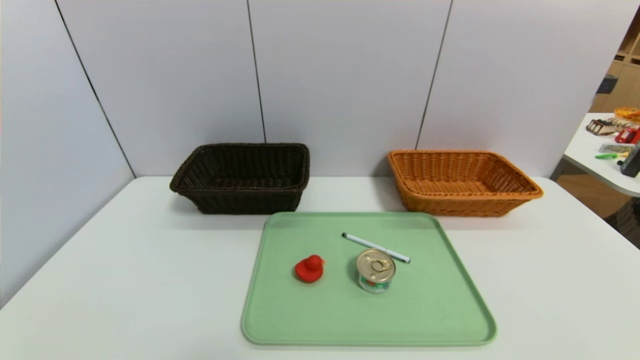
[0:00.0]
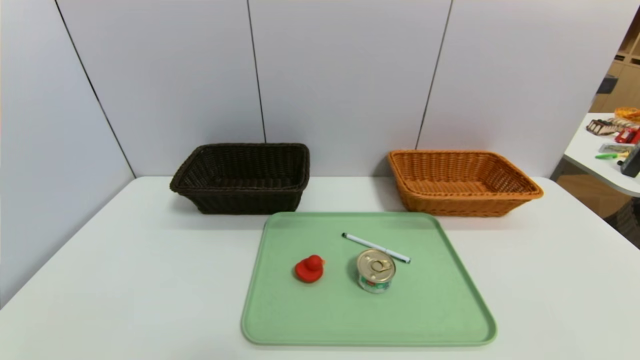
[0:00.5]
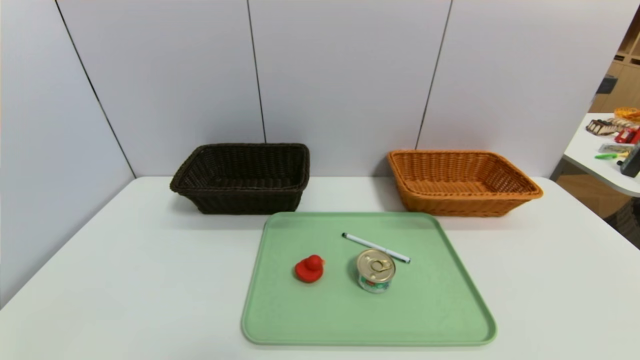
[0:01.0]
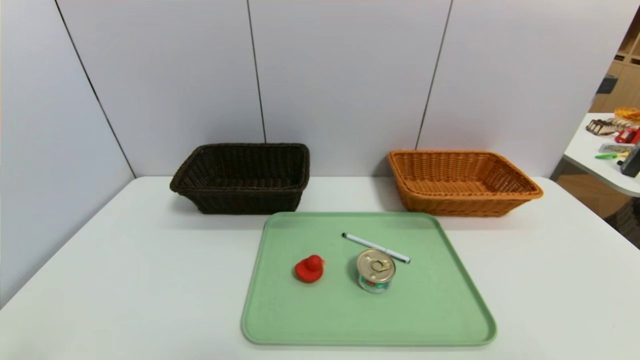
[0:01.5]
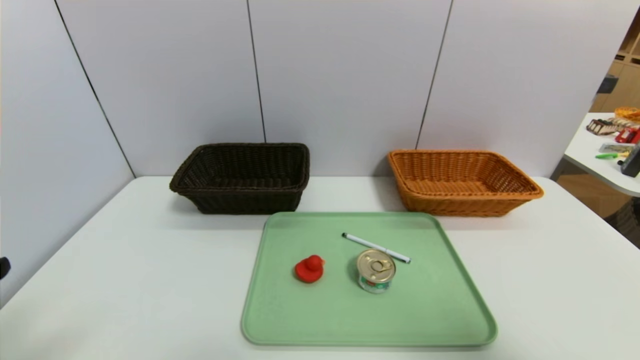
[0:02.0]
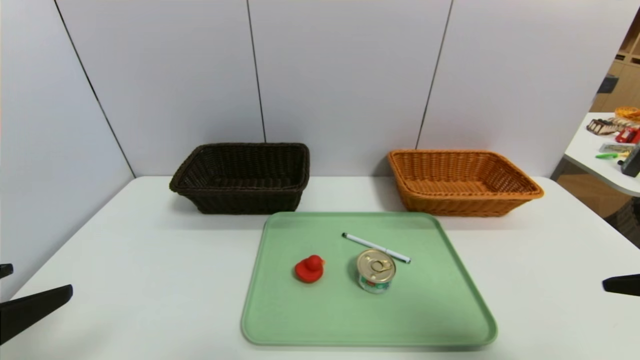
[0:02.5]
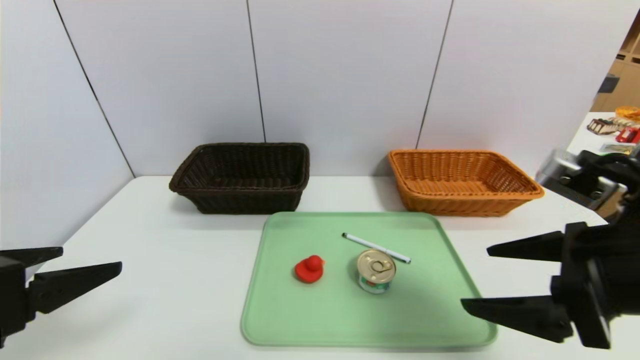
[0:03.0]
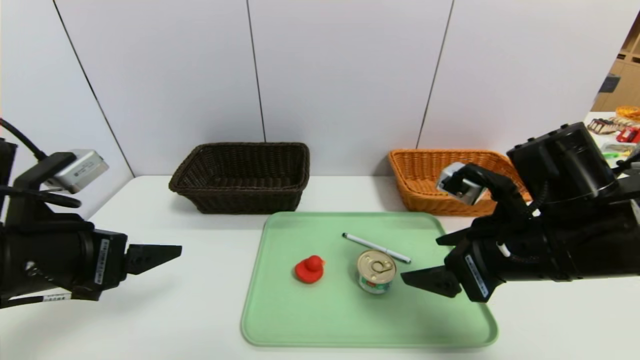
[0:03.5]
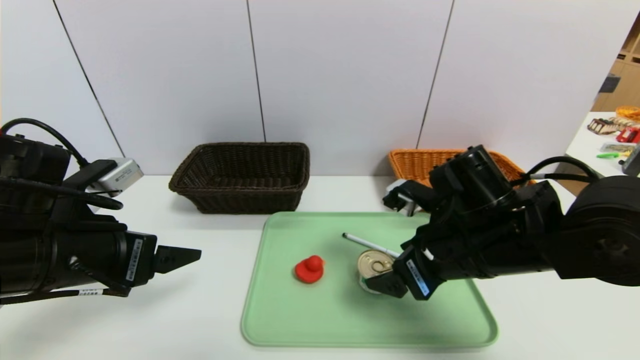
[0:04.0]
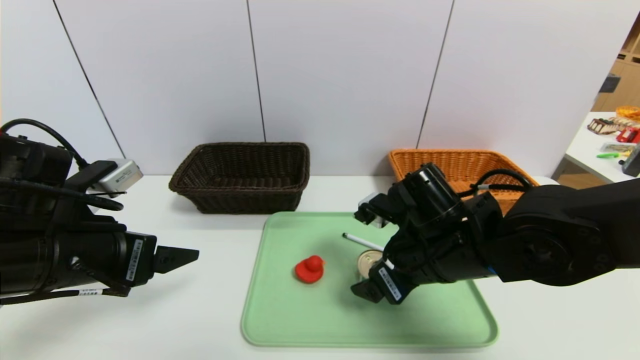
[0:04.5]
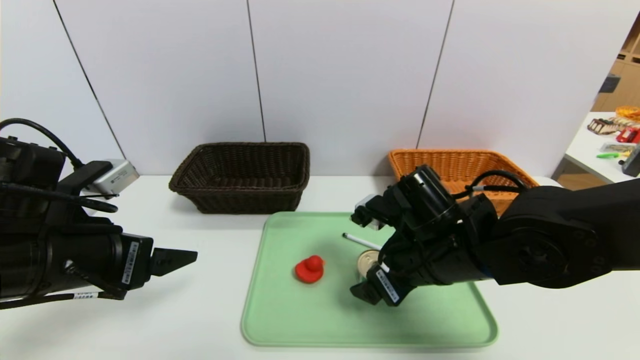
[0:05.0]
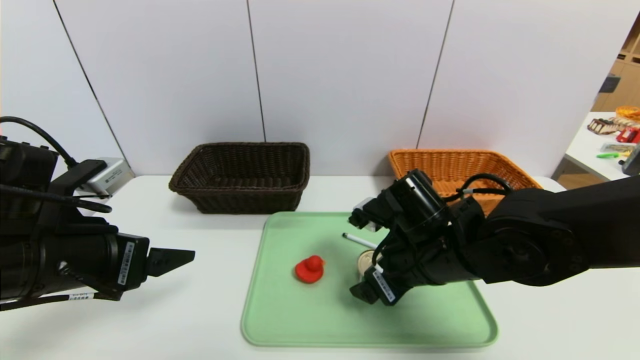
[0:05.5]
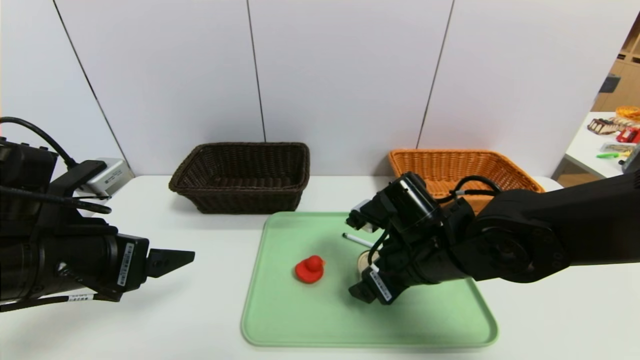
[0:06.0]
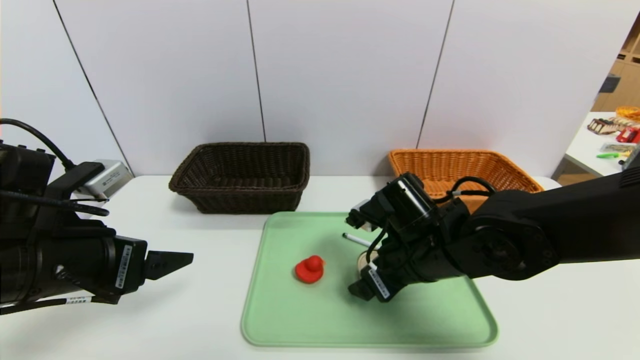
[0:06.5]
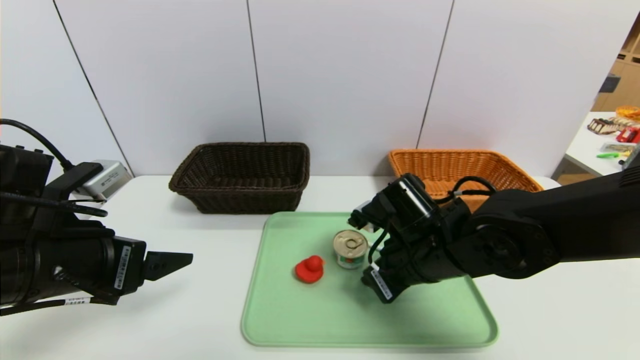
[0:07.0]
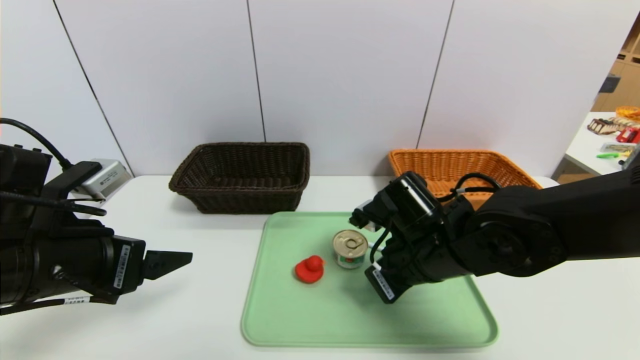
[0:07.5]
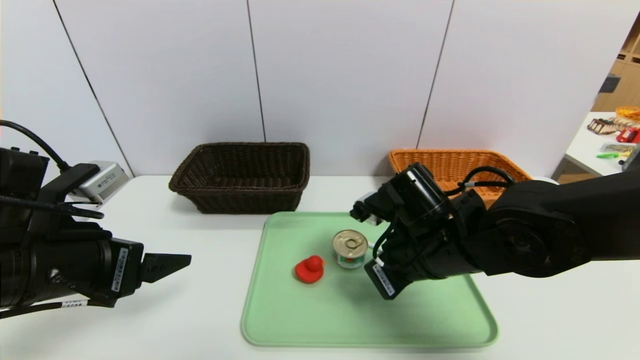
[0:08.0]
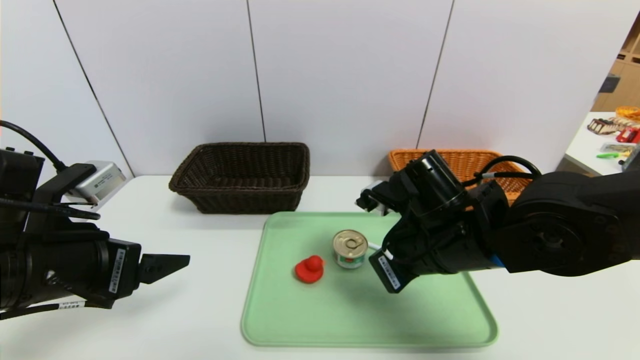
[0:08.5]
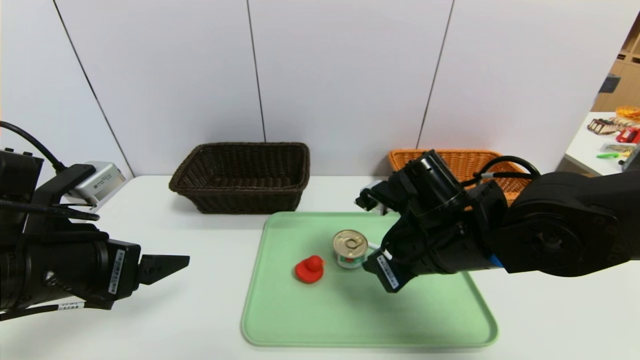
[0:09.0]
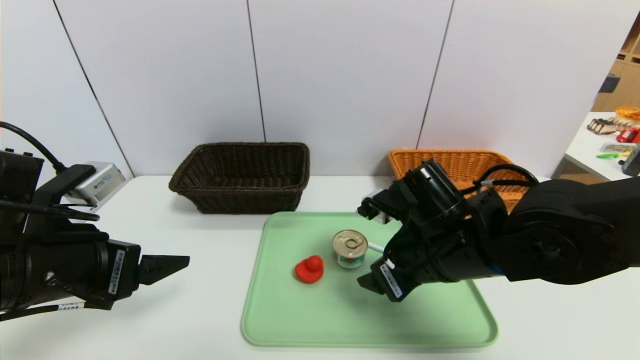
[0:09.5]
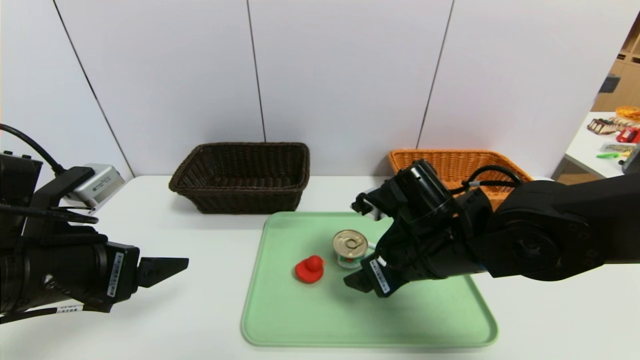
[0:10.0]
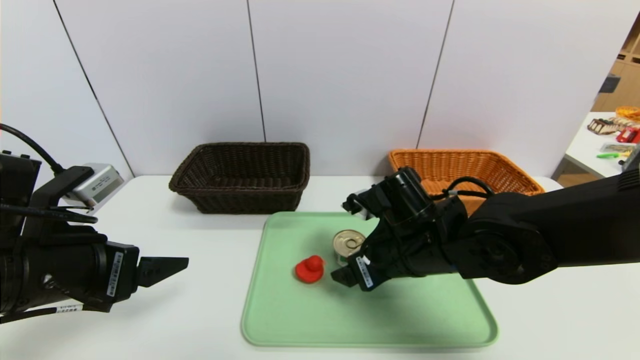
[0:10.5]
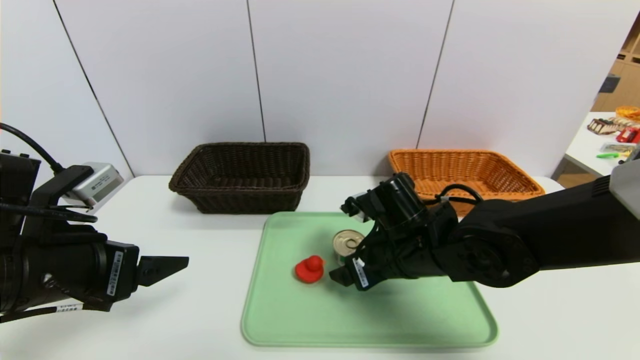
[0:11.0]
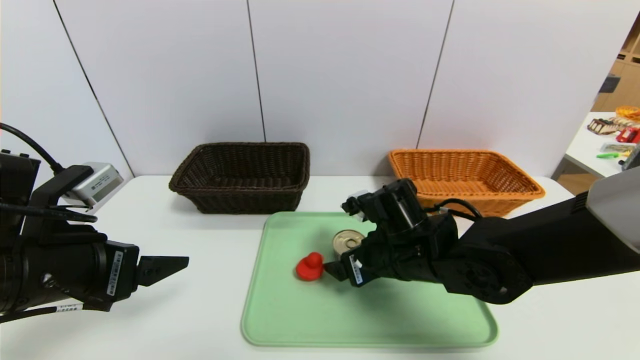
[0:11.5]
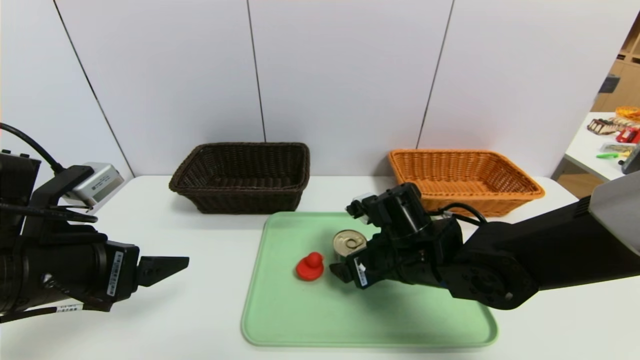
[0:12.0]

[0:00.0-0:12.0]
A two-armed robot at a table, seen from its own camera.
Task of the whole recording: place the food in the right basket with the right gripper, and place the non food items in the left basket with the left gripper.
0:00.0 to 0:02.0: Both grippers move upward, some 20 cm.
0:02.0 to 0:04.0: The left gripper heads forward, covering roughly 15 cm, while the right gripper travels forward, to the left and downward by roughly 30 cm.
0:04.0 to 0:06.0: The right gripper ends up some 5 cm from where it was.
0:06.0 to 0:08.0: The right gripper closes.
0:08.0 to 0:10.0: The right gripper opens.
0:10.0 to 0:12.0: The right gripper changes place by some 5 cm.

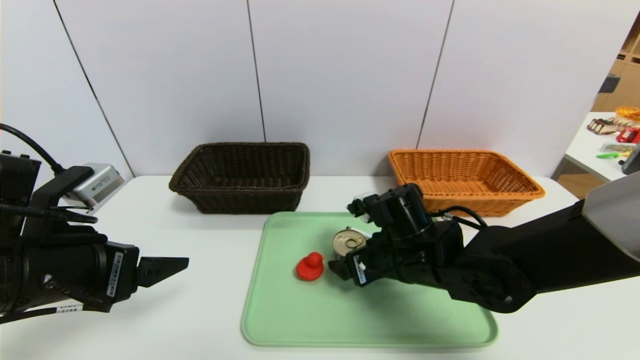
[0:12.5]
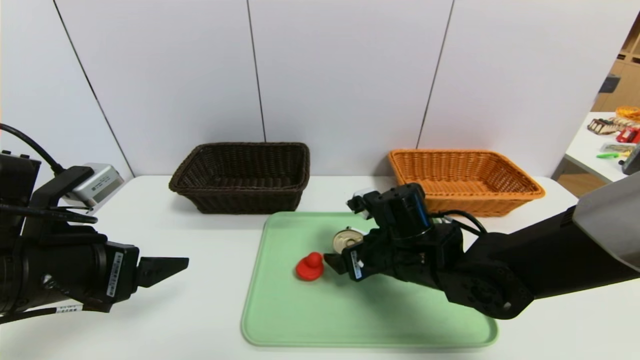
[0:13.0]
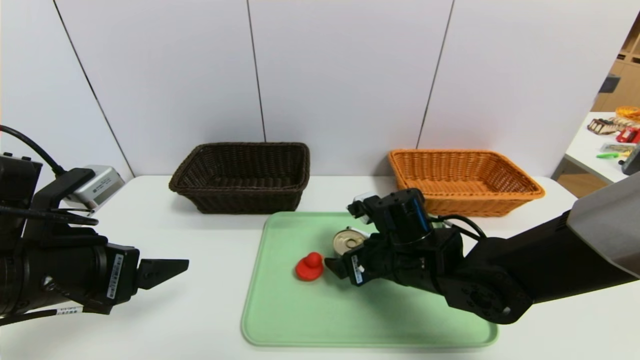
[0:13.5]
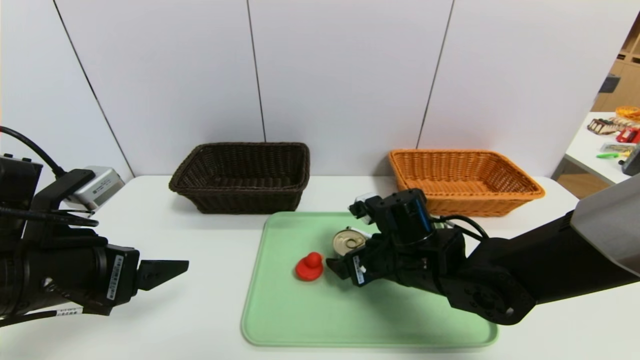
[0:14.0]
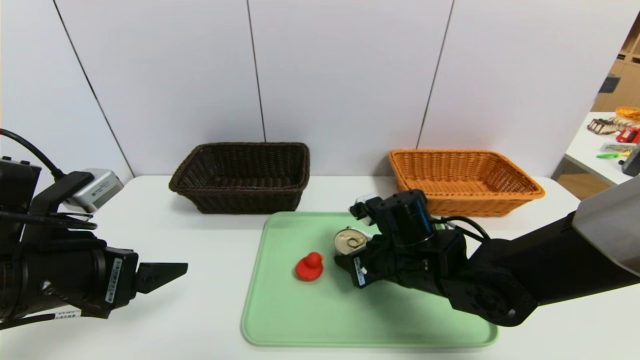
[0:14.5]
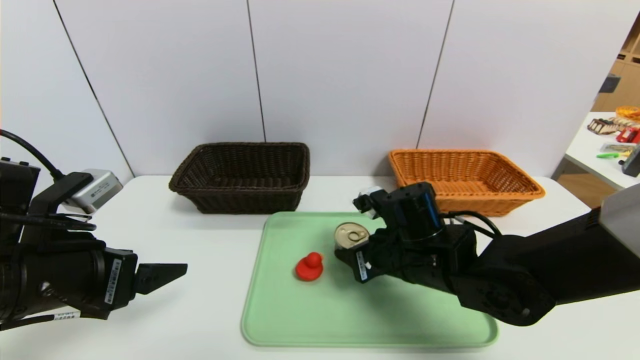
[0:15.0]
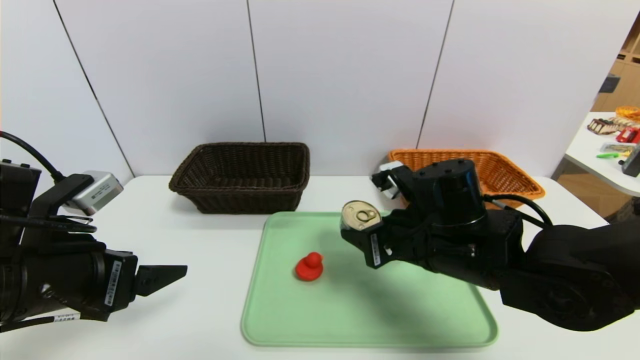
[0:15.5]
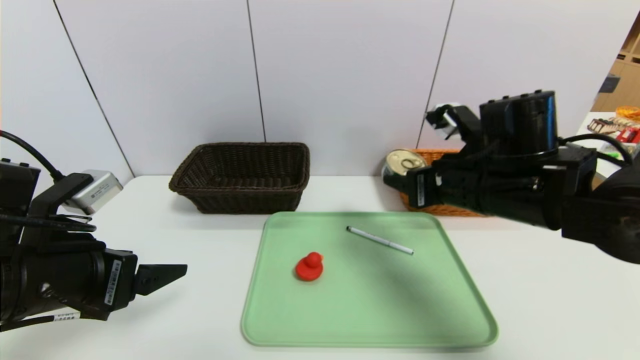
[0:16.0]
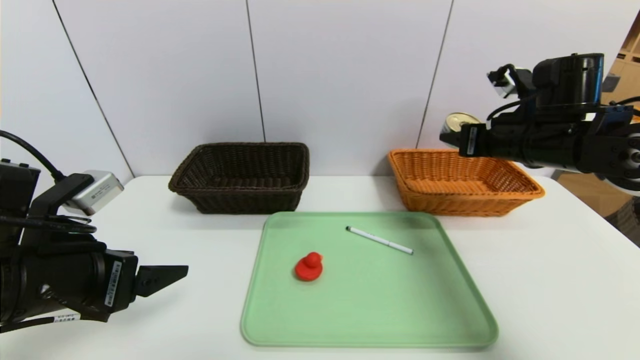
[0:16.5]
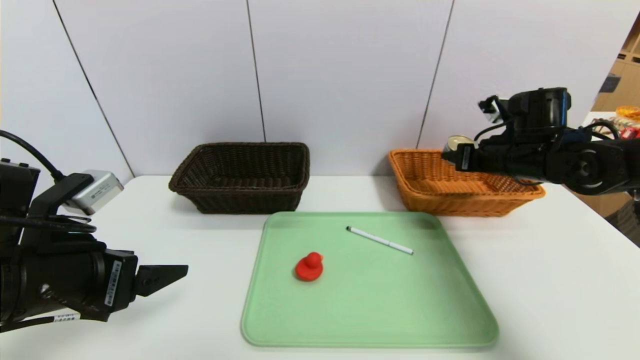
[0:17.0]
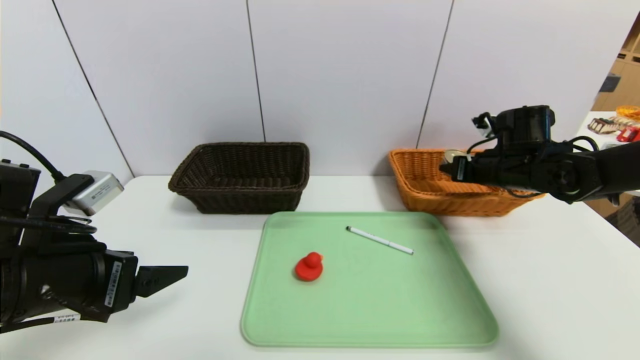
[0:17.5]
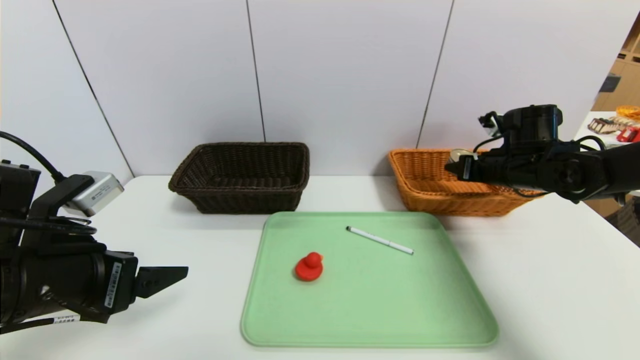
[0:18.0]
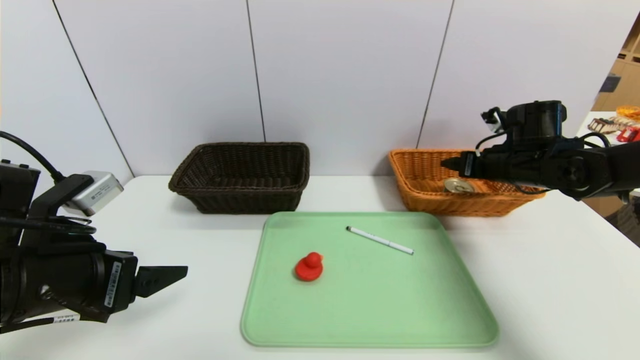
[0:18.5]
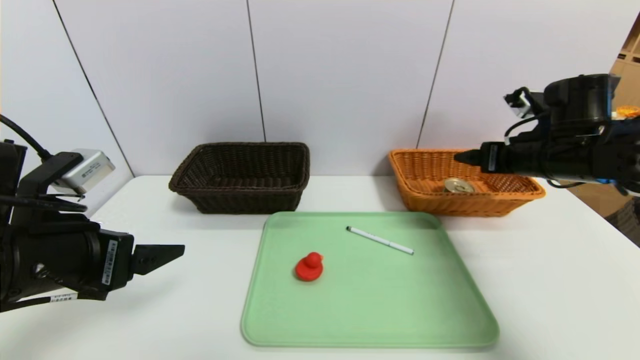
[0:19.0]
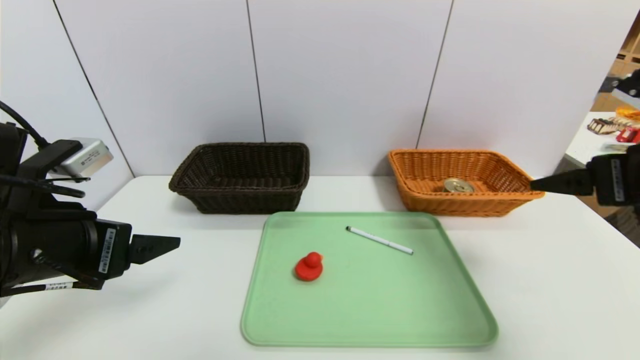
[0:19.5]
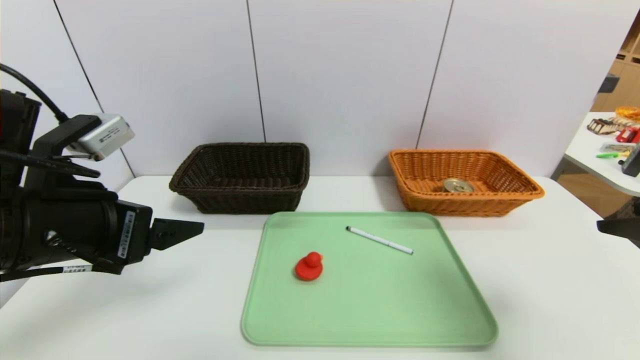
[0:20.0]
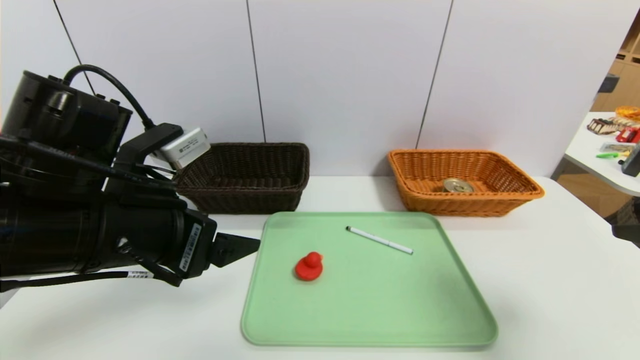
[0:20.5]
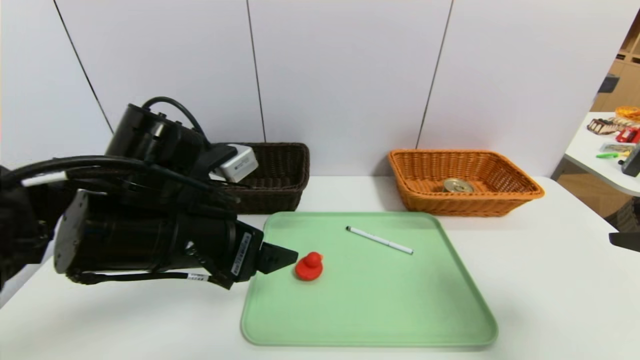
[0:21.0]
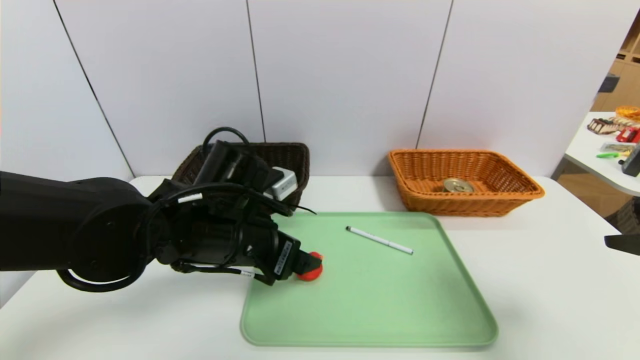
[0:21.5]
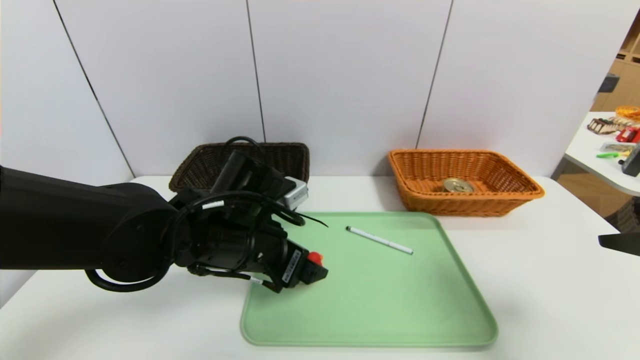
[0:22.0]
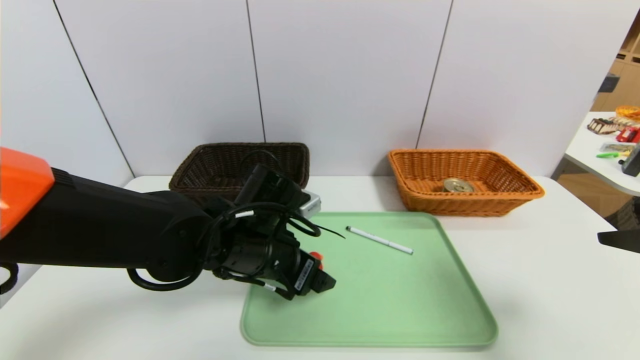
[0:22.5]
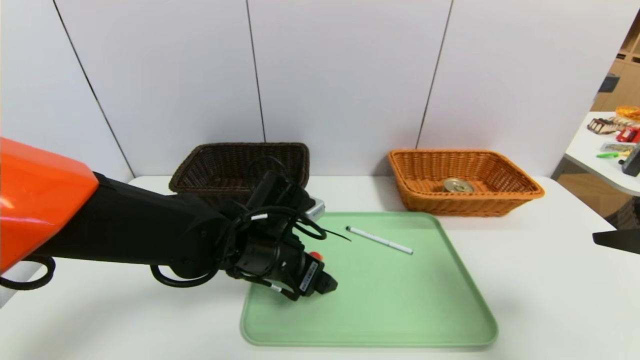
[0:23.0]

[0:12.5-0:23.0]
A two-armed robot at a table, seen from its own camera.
Task of the whole recording: place the food in the right basket with the right gripper, and place the non food items in the left basket with the left gripper.
Step, 0:12.5 to 0:18.0: Grasp the can and put it in the right basket.
0:12.5 to 0:14.5: The right gripper closes.
0:14.5 to 0:16.5: The right gripper moves to the right and upward, roughly 20 cm.
0:16.5 to 0:19.0: The right gripper opens up.
0:19.0 to 0:21.0: The left gripper moves to the right, approximately 10 cm. Meanwhile the right gripper goes approximately 20 cm backward.
0:21.0 to 0:23.0: The left gripper goes approximately 15 cm downward, to the right and forward.
